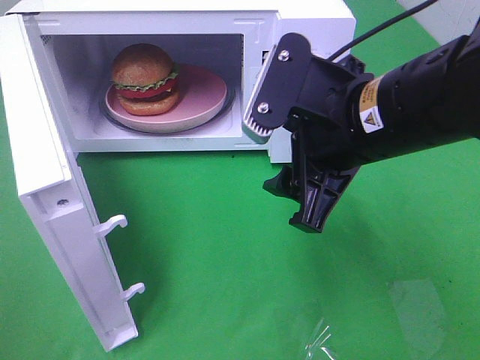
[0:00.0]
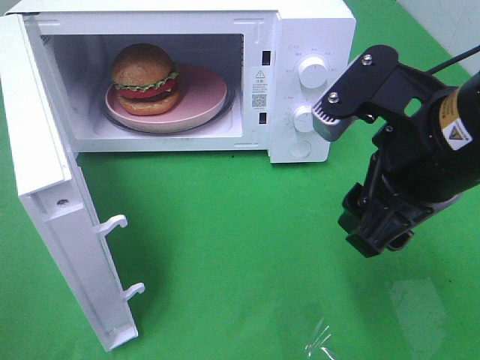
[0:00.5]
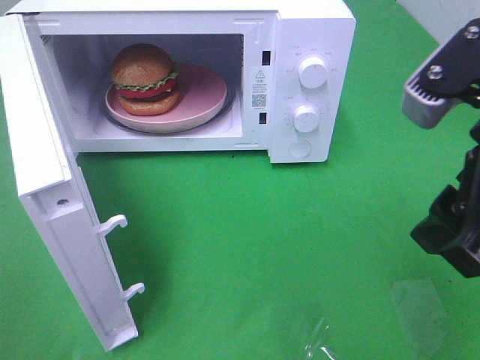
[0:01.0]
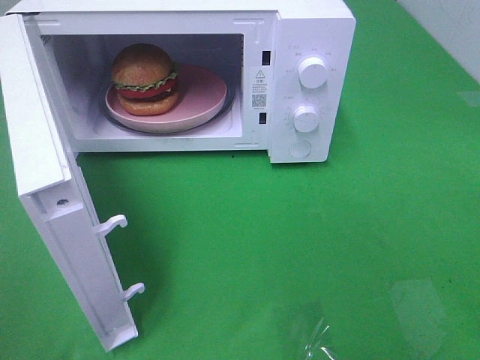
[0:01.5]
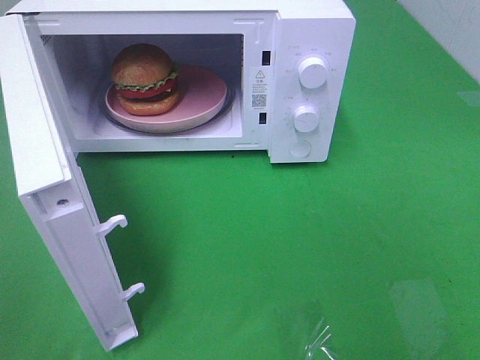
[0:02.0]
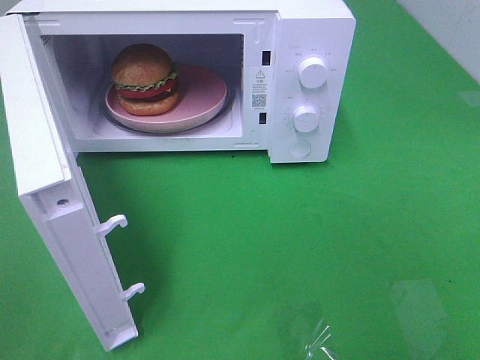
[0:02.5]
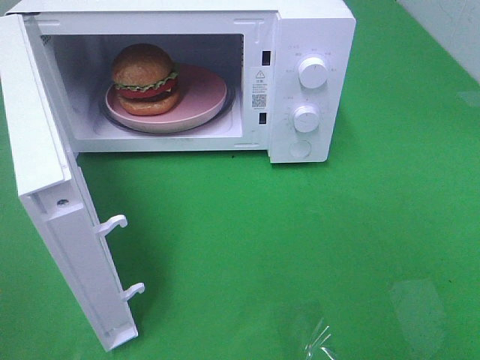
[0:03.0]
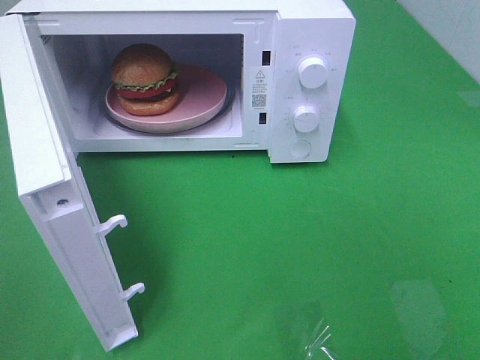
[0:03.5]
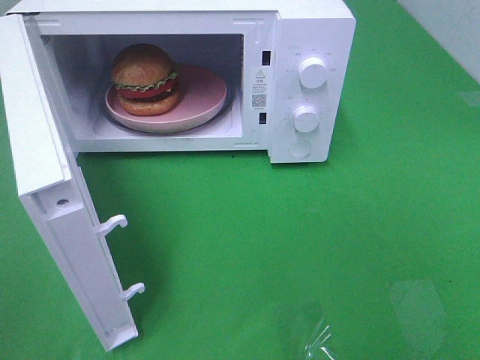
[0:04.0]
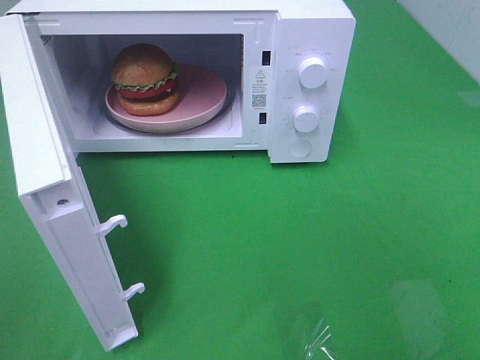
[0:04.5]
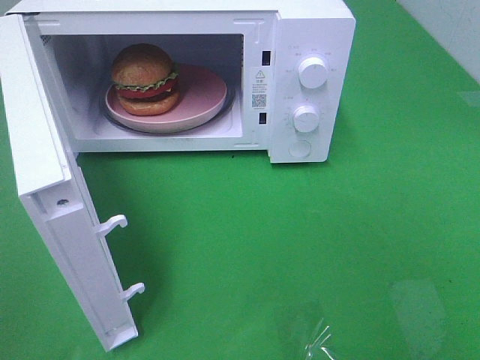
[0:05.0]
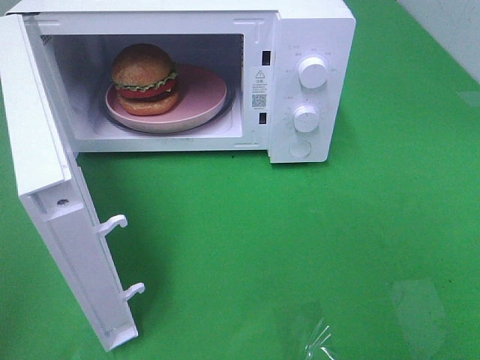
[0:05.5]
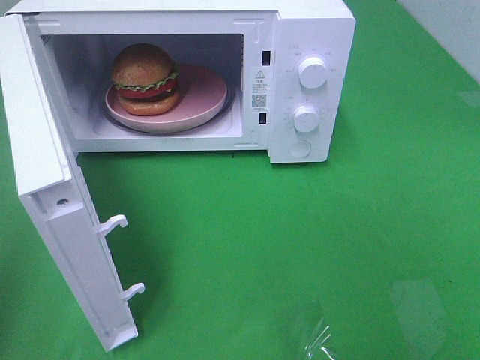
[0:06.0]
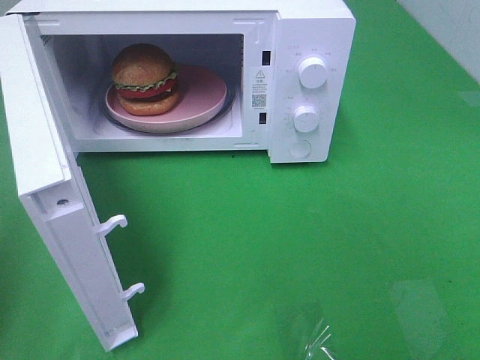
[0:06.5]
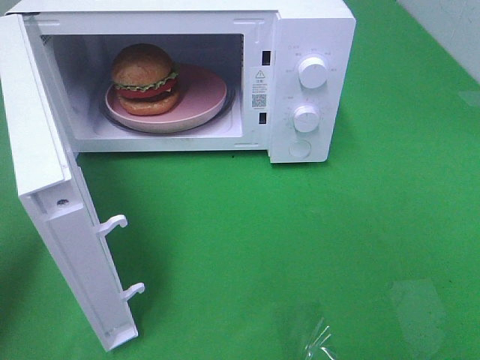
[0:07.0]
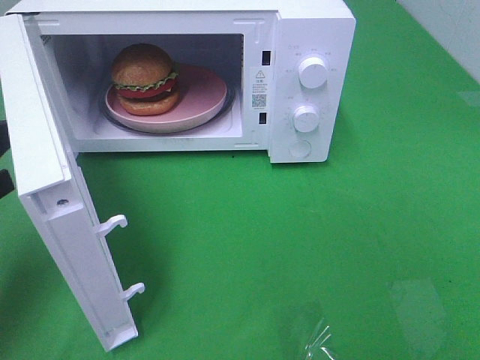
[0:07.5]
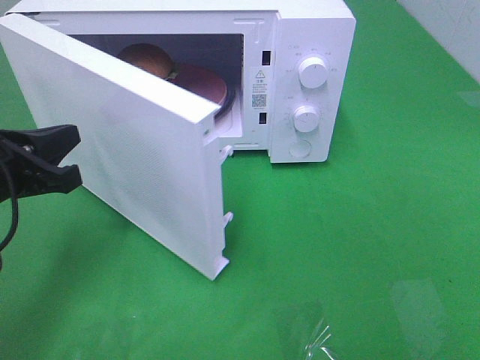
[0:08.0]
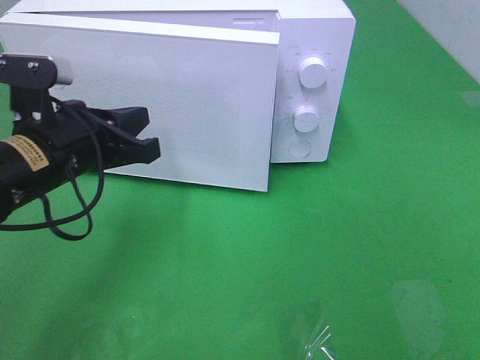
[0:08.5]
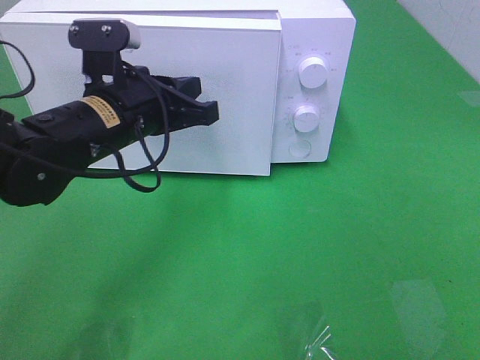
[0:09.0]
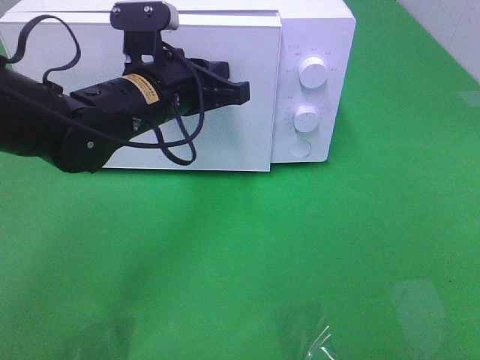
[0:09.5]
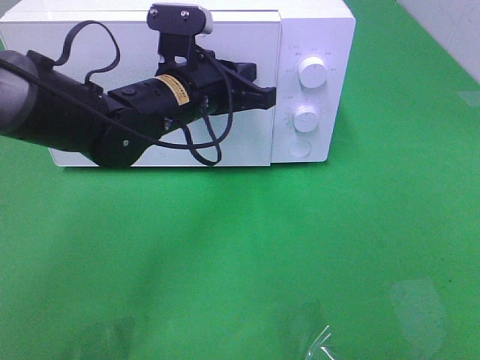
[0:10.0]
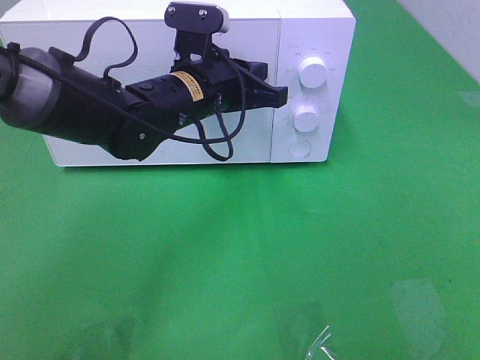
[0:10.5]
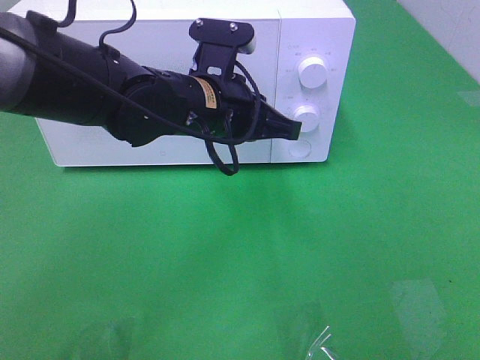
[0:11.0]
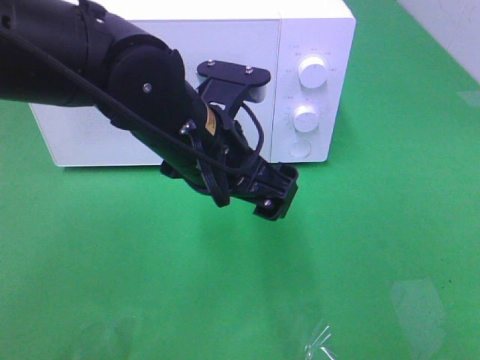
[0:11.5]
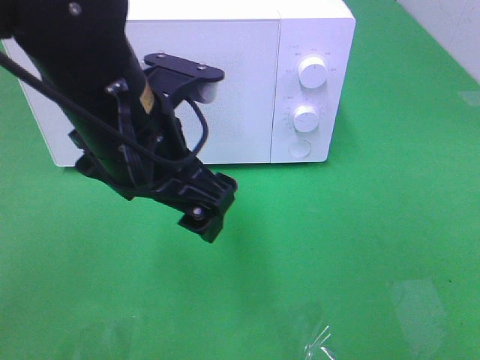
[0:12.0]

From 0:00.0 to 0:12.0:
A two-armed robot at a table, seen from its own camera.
Task of the whole recording: Heat the burger.
Step, from 0:00.0 to 0:10.5: Left hand: close the microwave door.
From 0:00.0 to 0:02.0: The right gripper travels to the right and backward by some 25 cm.
From 0:06.0 to 0:08.0: The left gripper is displaced forward, downward and to the right by approximately 20 cm.
From 0:08.0 to 0:10.0: The left gripper travels to the right and forward by roughly 20 cm.
From 0:10.0 to 0:12.0: The left gripper is displaced backward and upward by roughly 15 cm, and opens up.

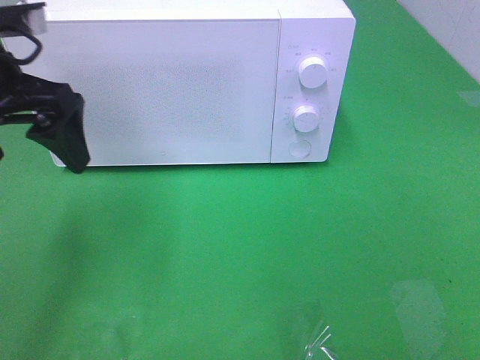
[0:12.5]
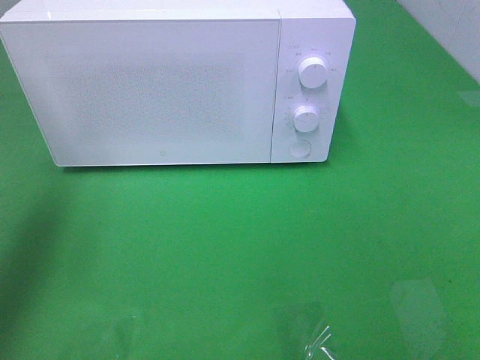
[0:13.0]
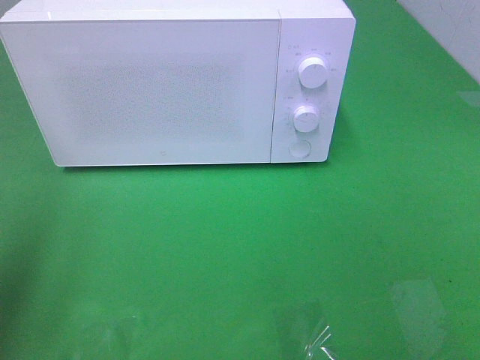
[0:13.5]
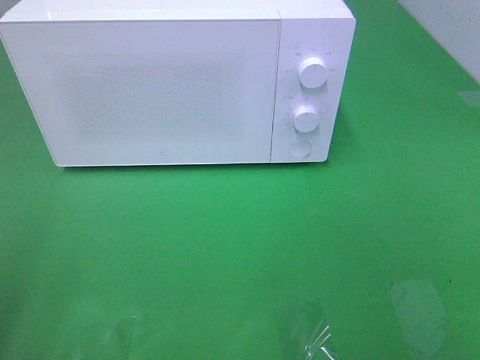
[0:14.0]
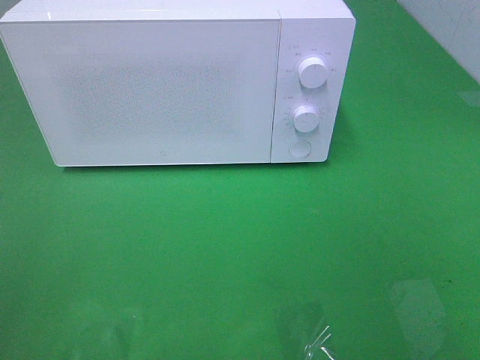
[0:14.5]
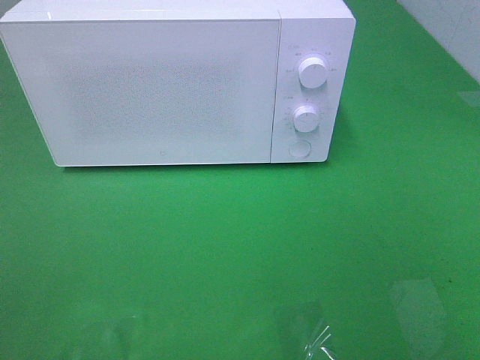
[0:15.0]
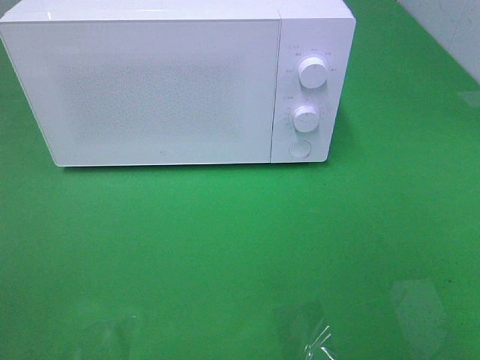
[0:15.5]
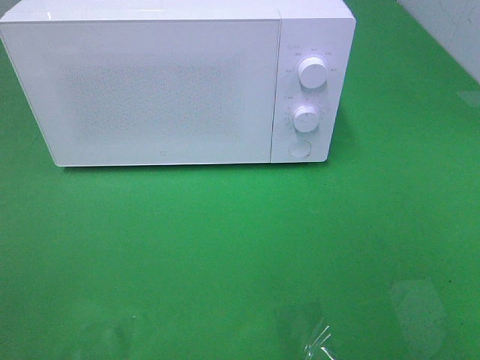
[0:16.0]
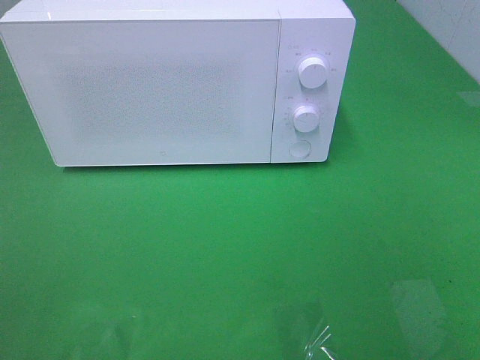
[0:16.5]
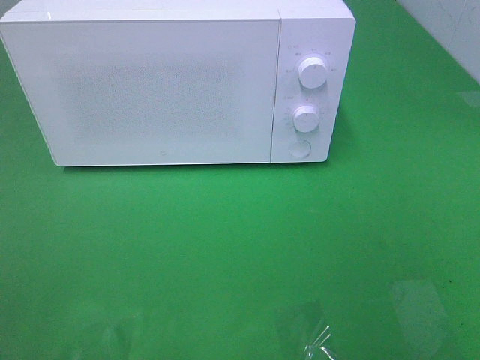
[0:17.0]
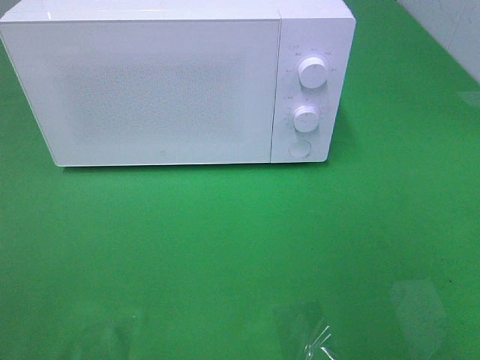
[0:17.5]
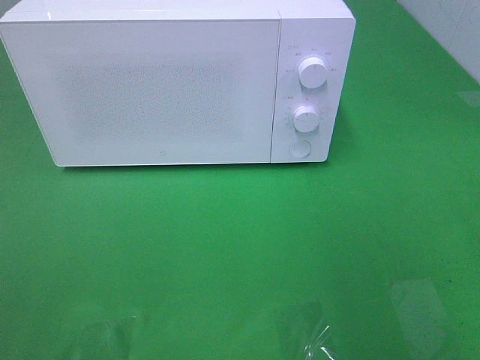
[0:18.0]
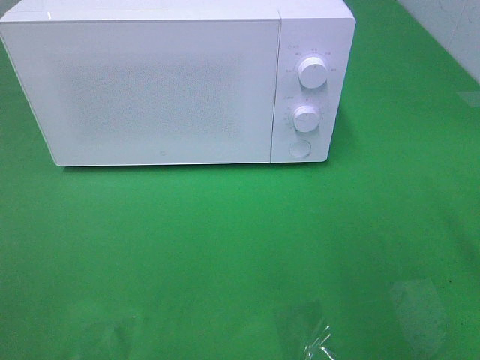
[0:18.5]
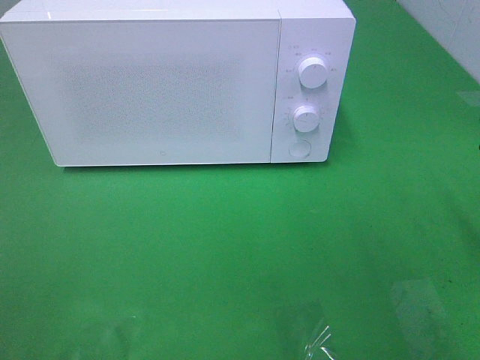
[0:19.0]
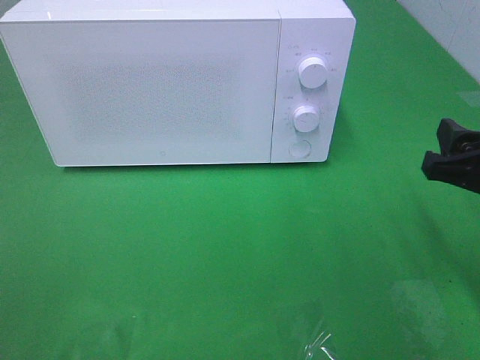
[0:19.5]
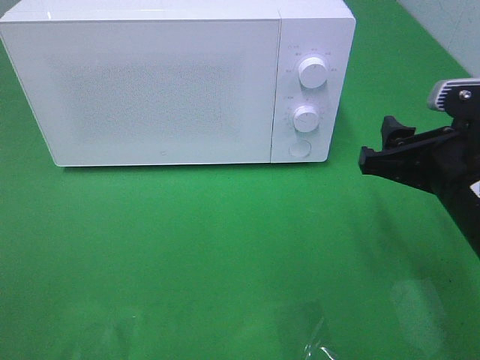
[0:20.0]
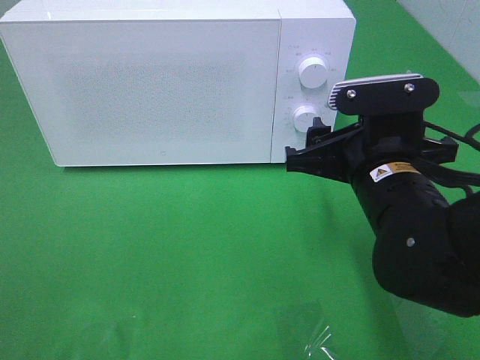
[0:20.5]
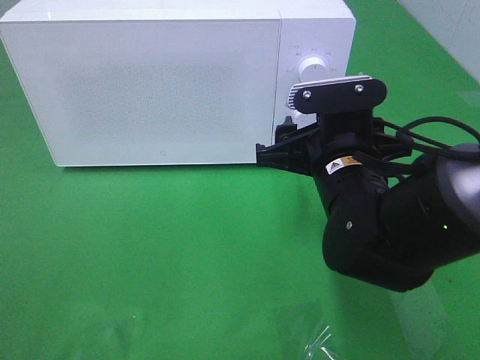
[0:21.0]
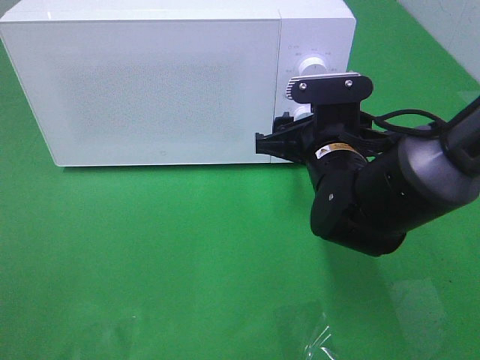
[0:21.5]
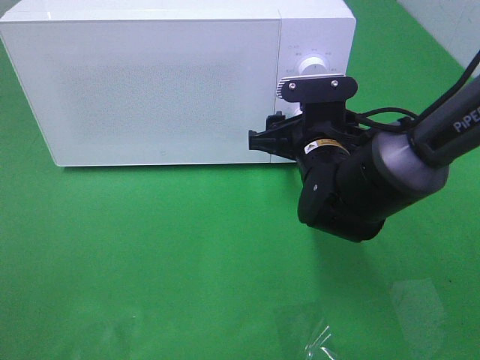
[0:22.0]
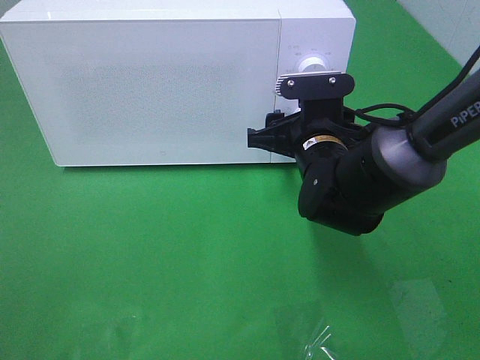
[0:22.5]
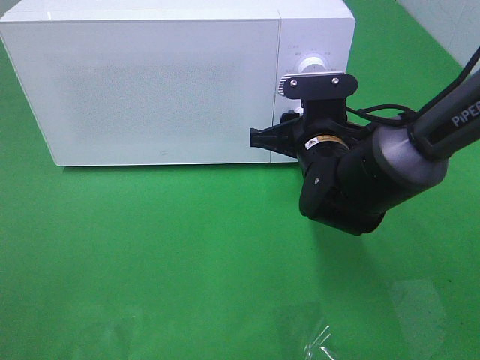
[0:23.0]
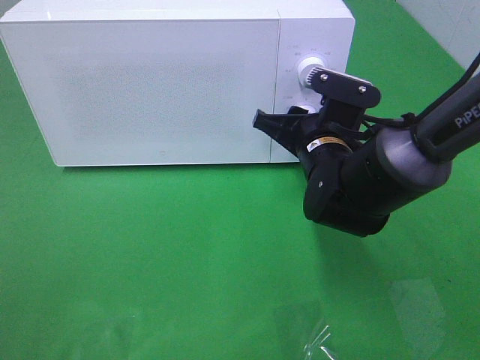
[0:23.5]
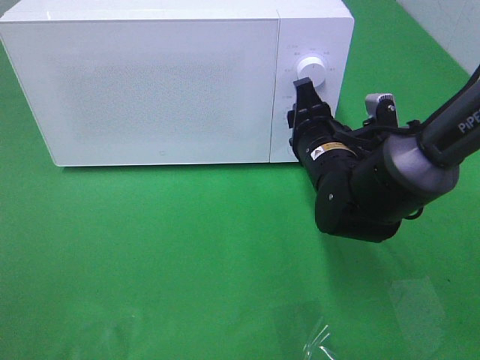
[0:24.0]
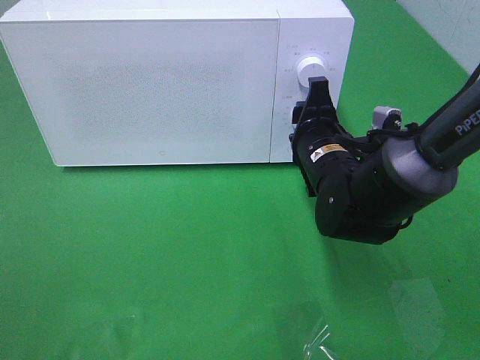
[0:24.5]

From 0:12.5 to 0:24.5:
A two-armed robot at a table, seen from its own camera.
Task of the whole recording: Heat the burger.
From 0:12.5 to 0:14.5: The left gripper is displaced backward by some 25 cm.
From 0:18.5 to 0:20.5: The right gripper goes roughly 20 cm to the left, downward and forward.
From 0:20.5 to 0:22.5: The right gripper heads forward, covering roughly 10 cm.

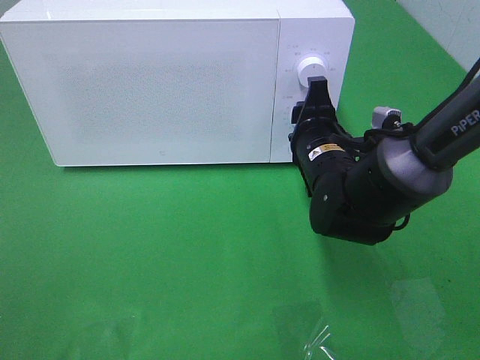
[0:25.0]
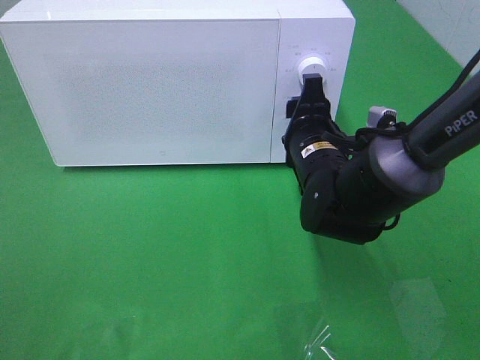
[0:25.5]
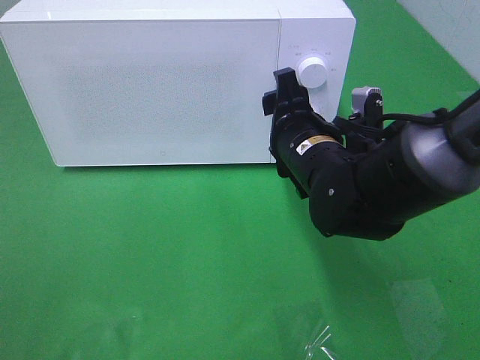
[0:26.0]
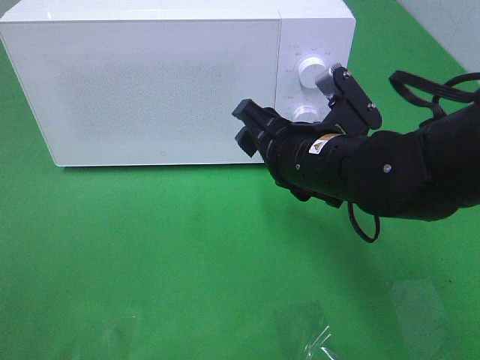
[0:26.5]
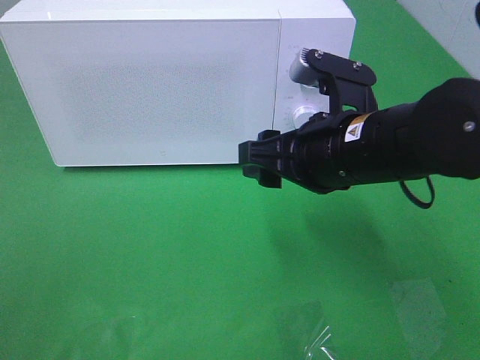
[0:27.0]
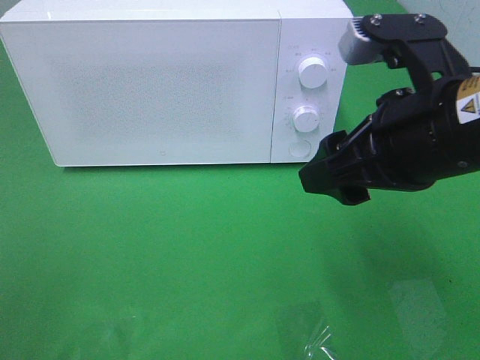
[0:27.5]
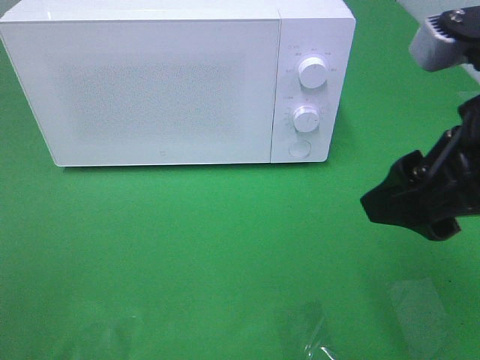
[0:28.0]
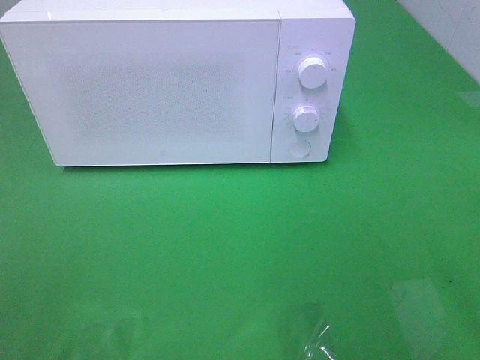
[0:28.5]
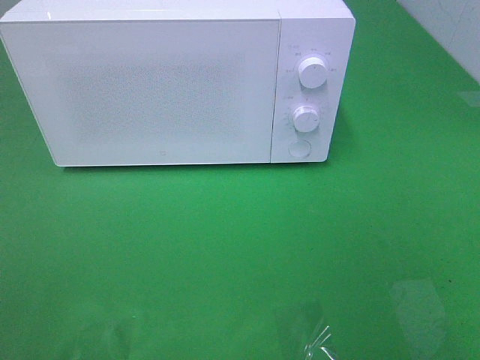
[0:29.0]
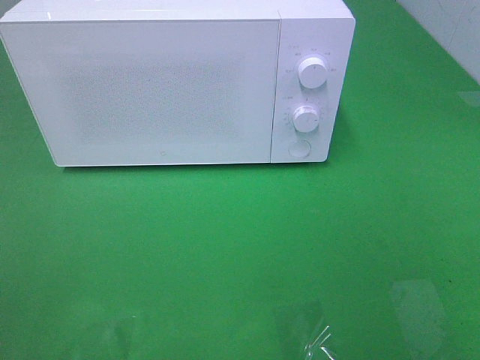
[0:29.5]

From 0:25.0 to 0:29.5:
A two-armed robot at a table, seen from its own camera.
Task of the whole recording: Heat the burger.
From 0:25.0 to 0:27.0: The right gripper is displaced upward and backward by some 10 cm.
From 0:27.0 to 0:29.5: The right gripper moves backward and to the right, about 30 cm.
